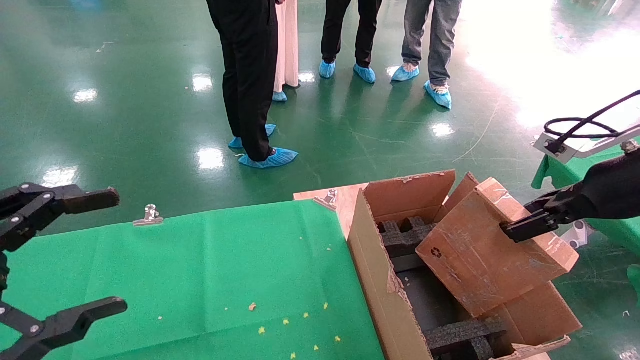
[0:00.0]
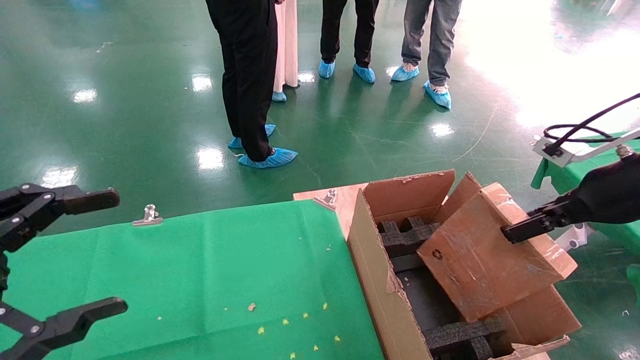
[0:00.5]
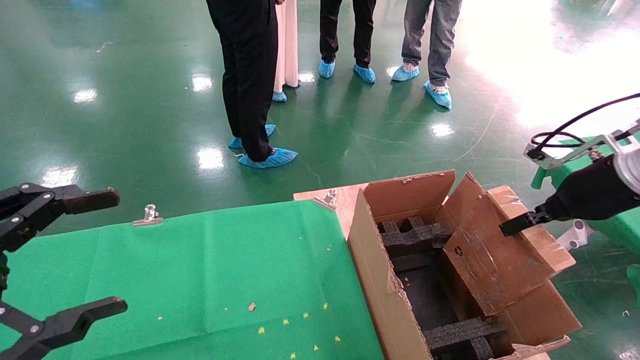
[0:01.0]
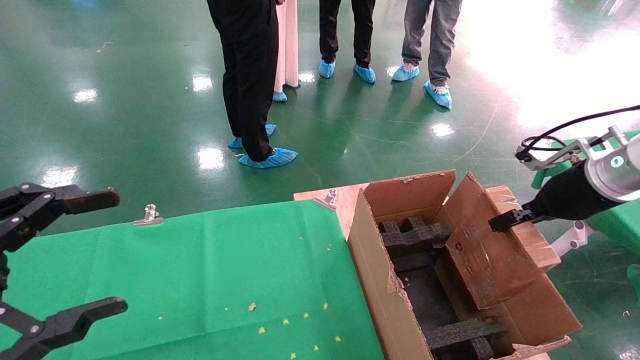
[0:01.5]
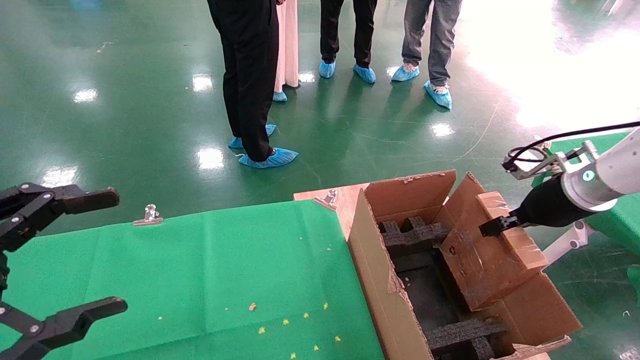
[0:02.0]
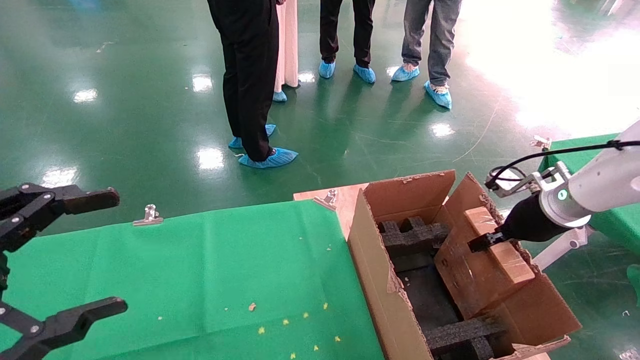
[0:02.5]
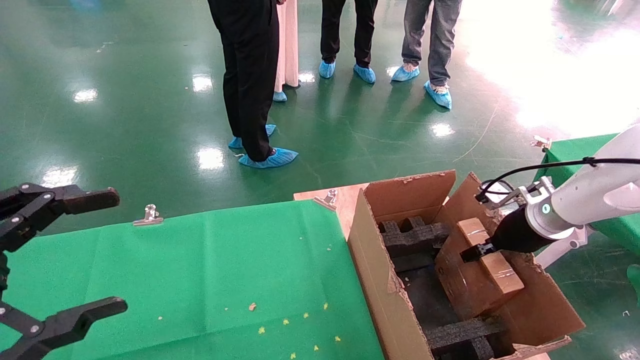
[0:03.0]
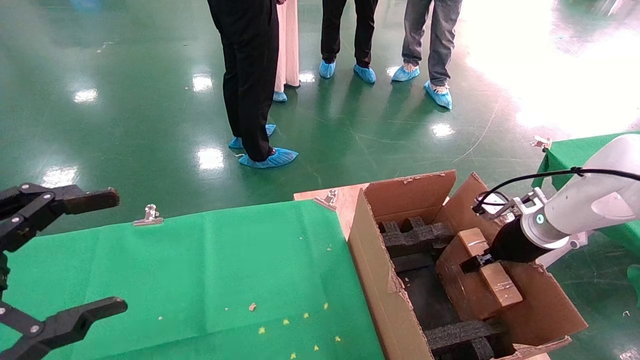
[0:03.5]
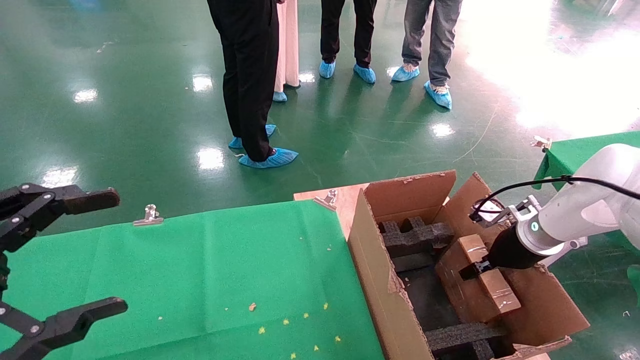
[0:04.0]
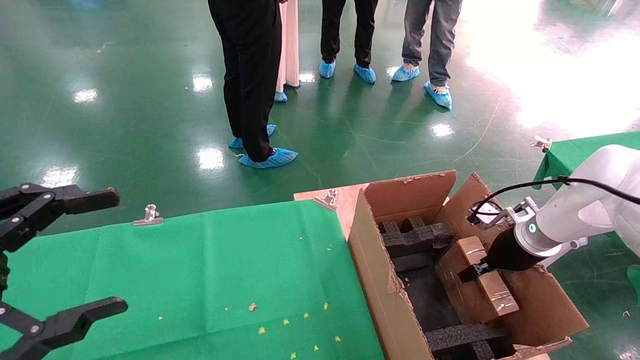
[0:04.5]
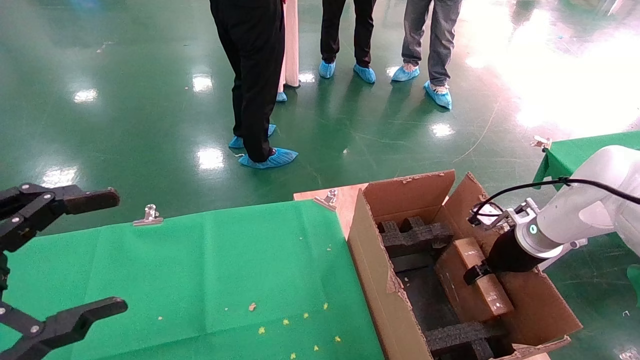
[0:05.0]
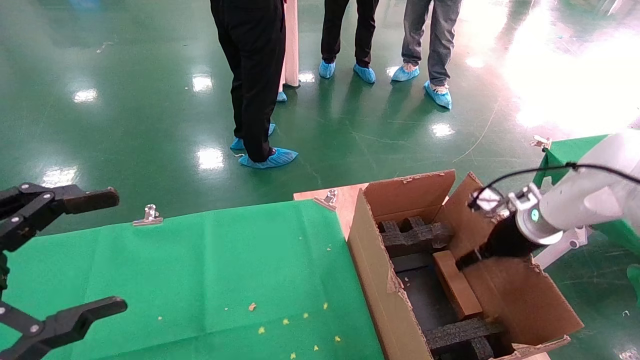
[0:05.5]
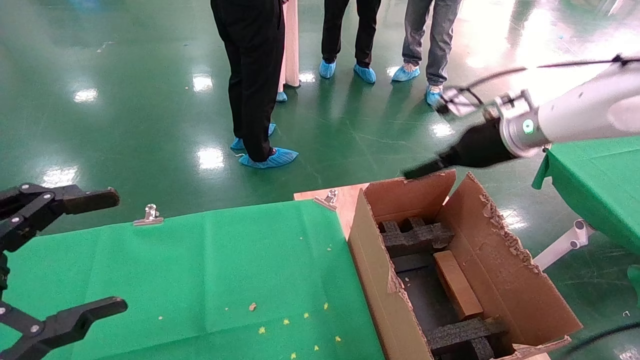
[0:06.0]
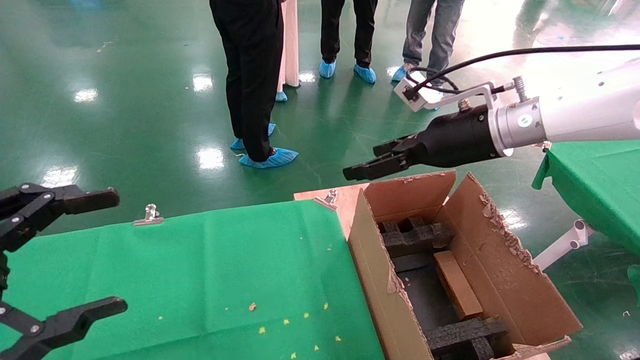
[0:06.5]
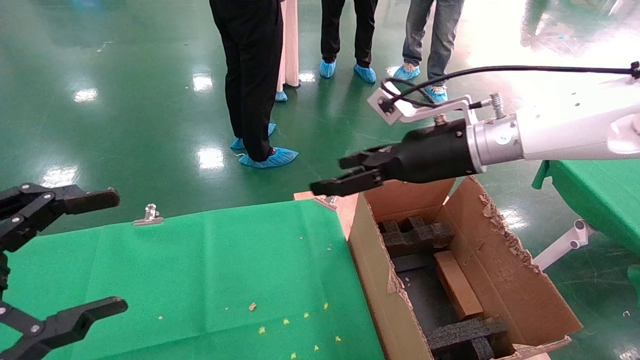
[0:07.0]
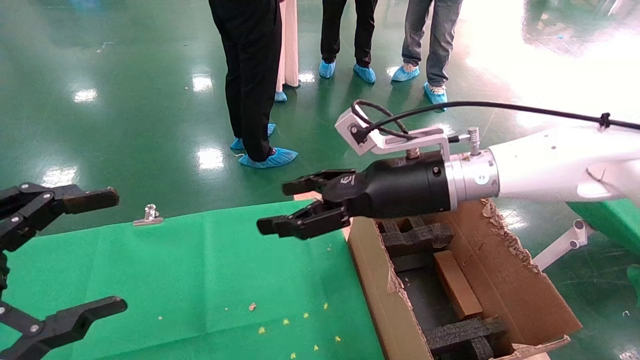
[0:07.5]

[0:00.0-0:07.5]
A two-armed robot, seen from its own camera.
Task of the whole recording: using a robotic arm to pick up a cardboard box and palace it the carton.
Step, 0:00.0 to 0:05.5: Place the mouse and the power cord paper box into the container.
0:00.0 to 0:02.0: The right gripper is displaced forward and downward by approximately 15 cm.
0:02.0 to 0:04.0: The right gripper is displaced downward by about 10 cm.
0:04.0 to 0:05.5: The right gripper opens its fingers.
0:05.5 to 0:07.5: The right gripper travels to the left and upward by about 25 cm.
